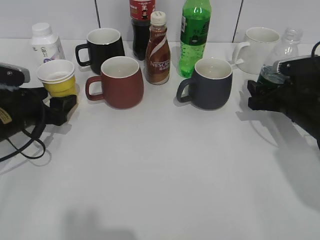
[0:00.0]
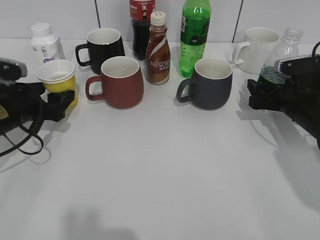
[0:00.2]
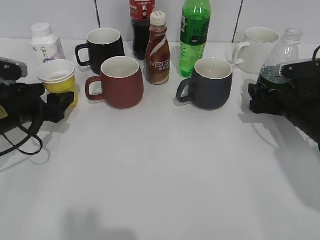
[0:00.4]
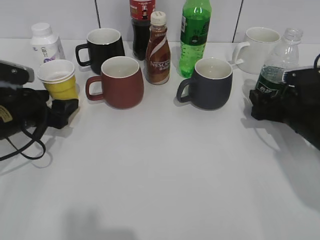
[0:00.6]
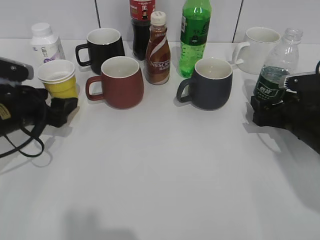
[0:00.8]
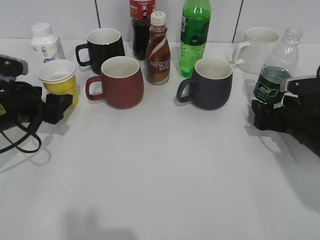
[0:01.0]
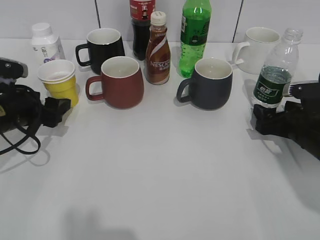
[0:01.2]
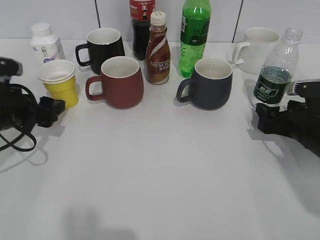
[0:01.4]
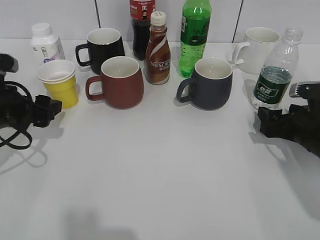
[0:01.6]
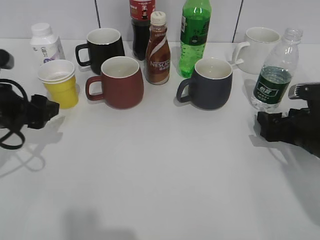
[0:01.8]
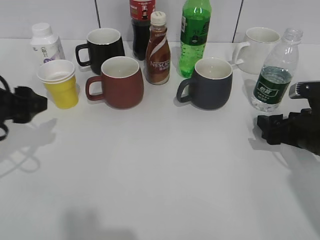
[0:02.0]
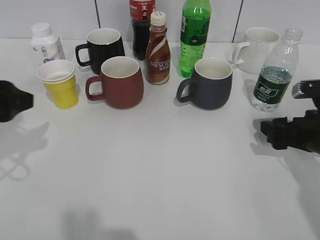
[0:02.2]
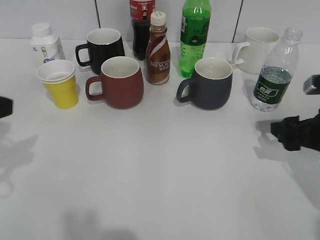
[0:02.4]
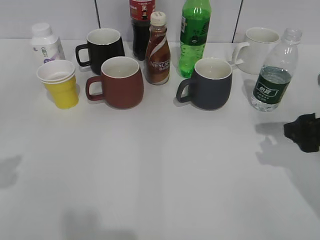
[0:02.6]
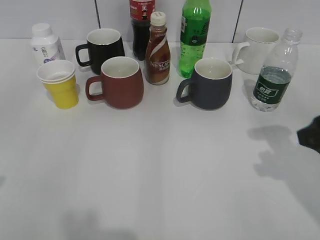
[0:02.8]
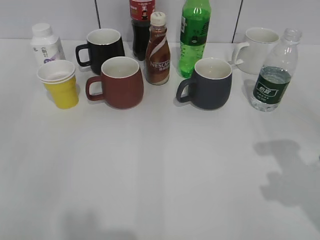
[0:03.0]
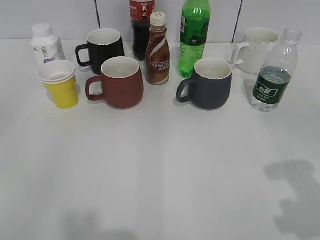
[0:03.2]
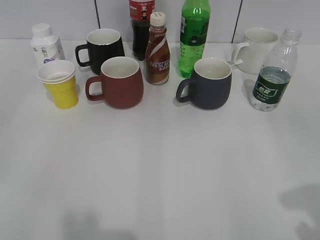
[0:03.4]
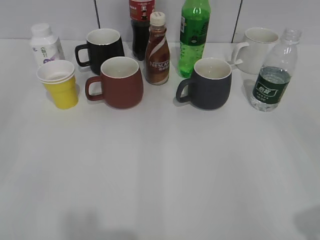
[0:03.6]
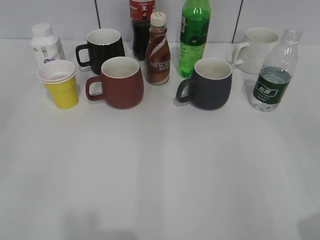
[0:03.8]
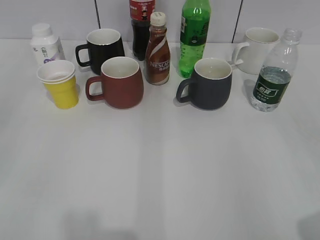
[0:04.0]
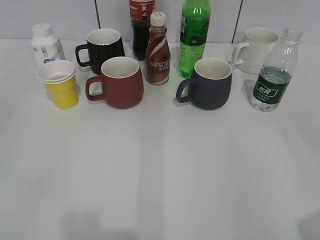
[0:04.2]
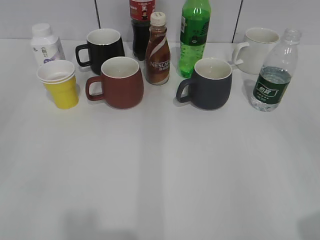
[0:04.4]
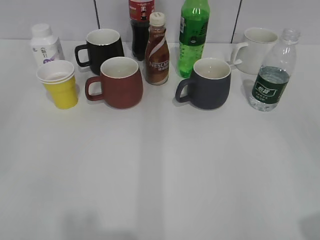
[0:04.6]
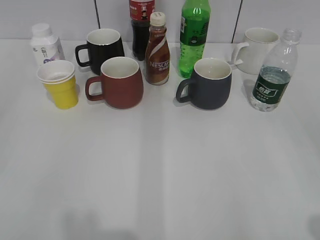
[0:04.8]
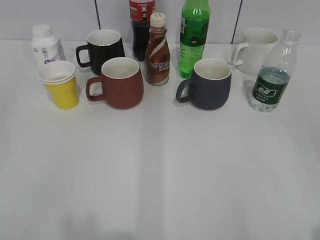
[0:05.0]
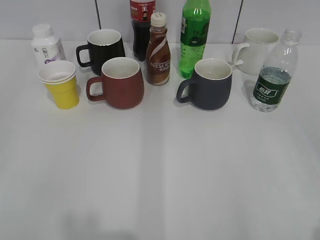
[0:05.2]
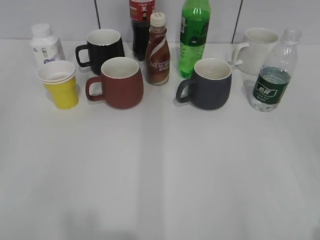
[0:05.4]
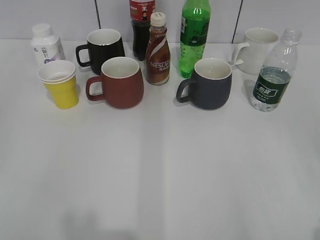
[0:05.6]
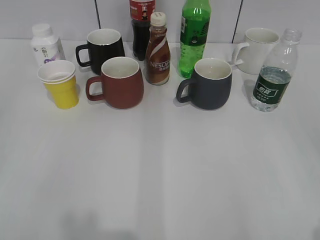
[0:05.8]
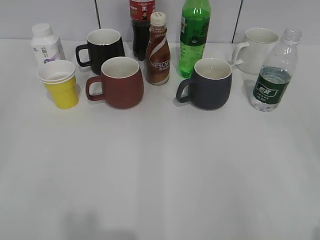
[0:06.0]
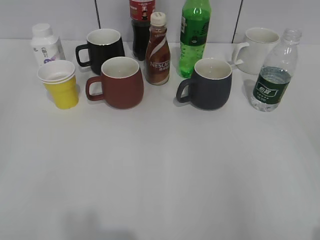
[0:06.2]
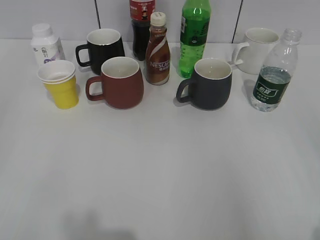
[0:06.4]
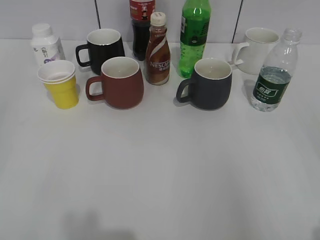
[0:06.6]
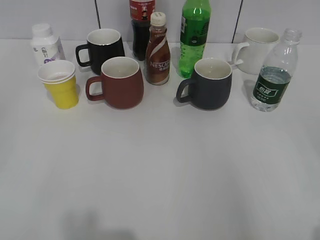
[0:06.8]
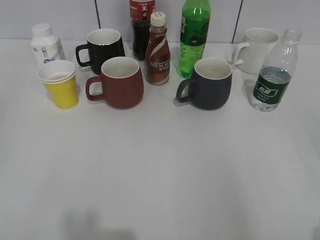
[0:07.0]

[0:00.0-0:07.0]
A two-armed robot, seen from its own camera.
0:00.0 to 0:01.4: The grippers stay close to where they were, moving slightly.
0:01.4 to 0:02.8: The right gripper is displaced upward and backward by some 15 cm. Meanwhile the left gripper shifts about 25 cm backward and upward.
0:02.8 to 0:04.2: The right gripper heads backward, covering roughly 20 cm.
0:05.6 to 0:07.0: Both grippers stay about where they are.

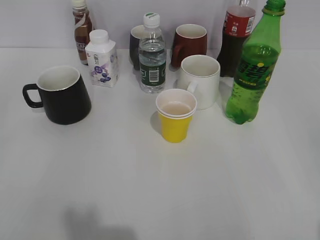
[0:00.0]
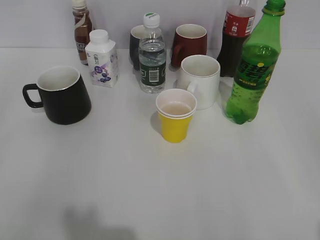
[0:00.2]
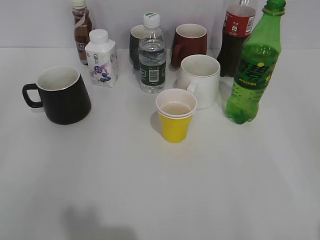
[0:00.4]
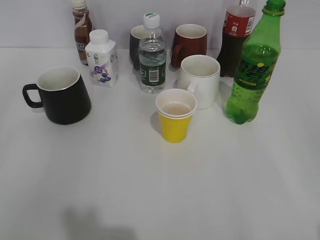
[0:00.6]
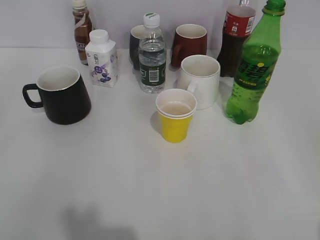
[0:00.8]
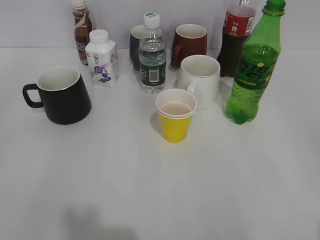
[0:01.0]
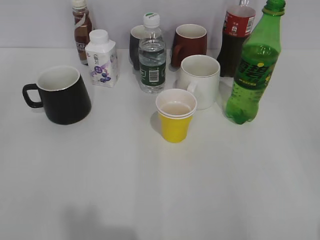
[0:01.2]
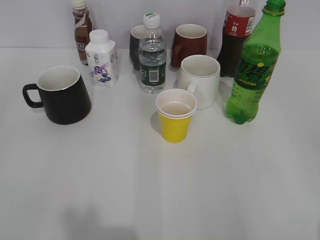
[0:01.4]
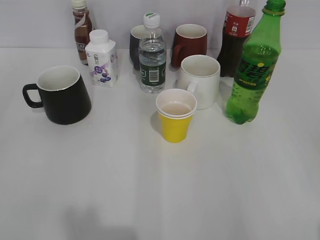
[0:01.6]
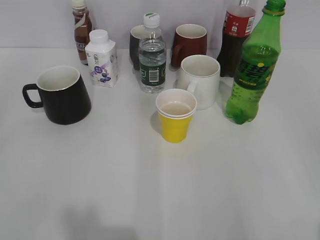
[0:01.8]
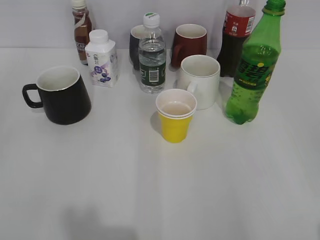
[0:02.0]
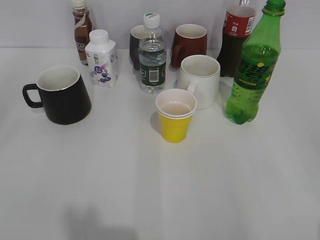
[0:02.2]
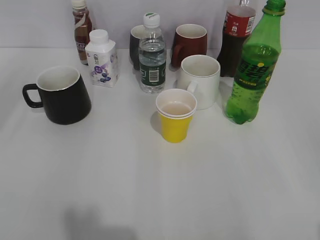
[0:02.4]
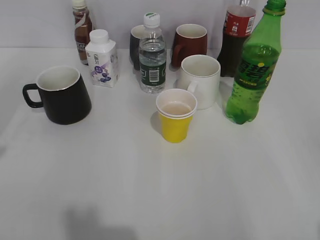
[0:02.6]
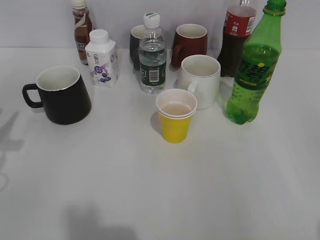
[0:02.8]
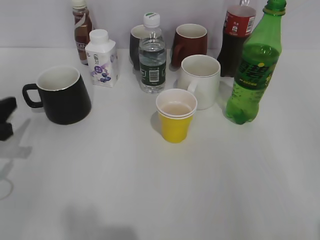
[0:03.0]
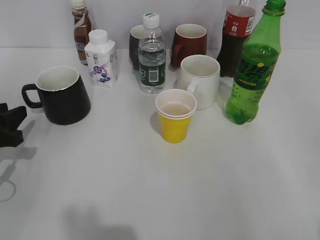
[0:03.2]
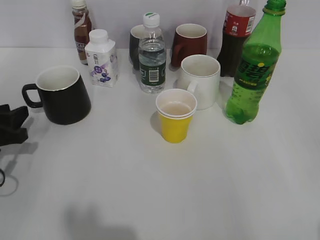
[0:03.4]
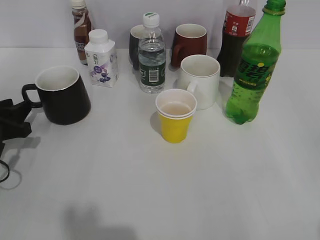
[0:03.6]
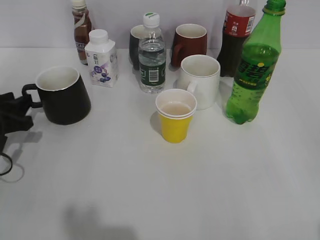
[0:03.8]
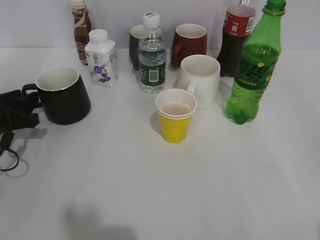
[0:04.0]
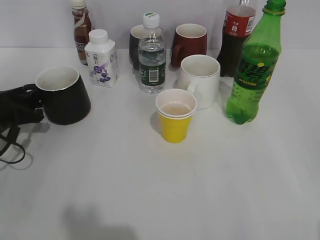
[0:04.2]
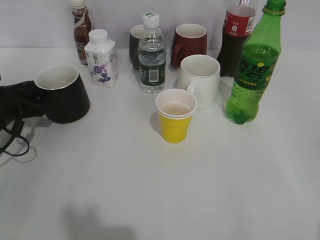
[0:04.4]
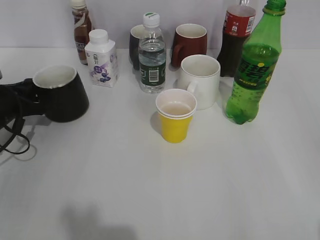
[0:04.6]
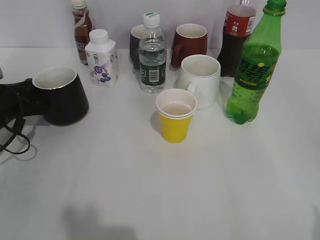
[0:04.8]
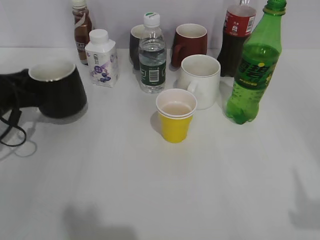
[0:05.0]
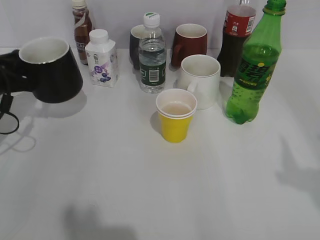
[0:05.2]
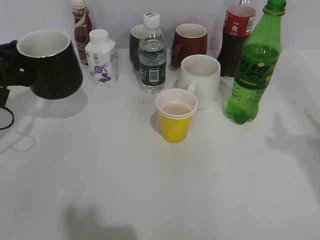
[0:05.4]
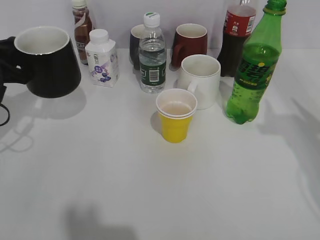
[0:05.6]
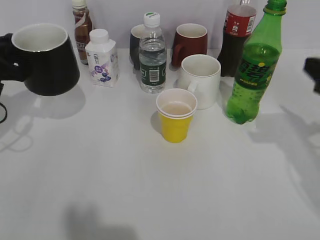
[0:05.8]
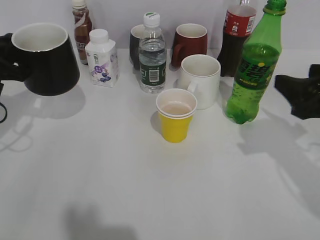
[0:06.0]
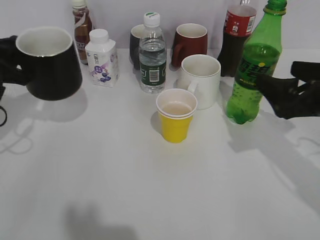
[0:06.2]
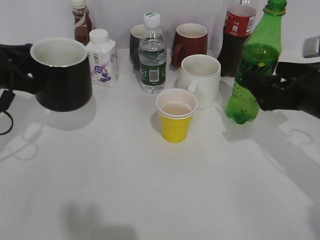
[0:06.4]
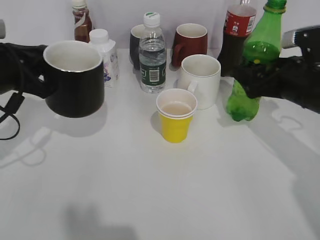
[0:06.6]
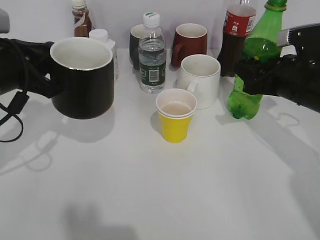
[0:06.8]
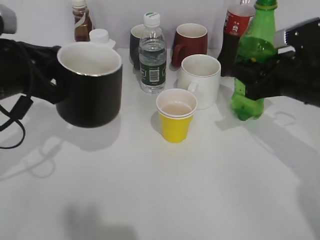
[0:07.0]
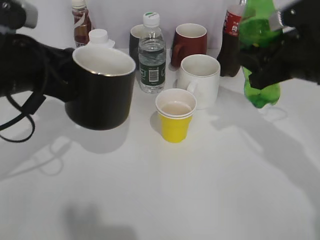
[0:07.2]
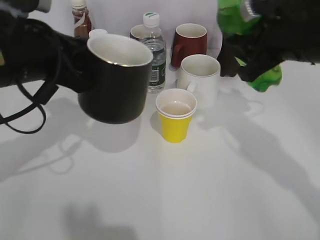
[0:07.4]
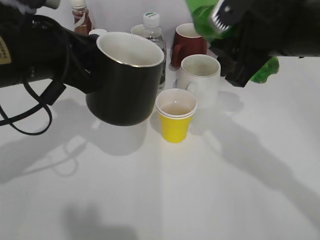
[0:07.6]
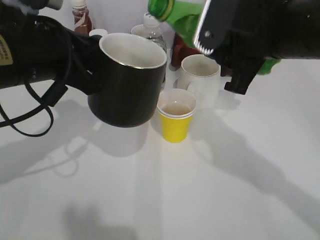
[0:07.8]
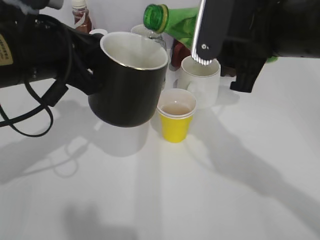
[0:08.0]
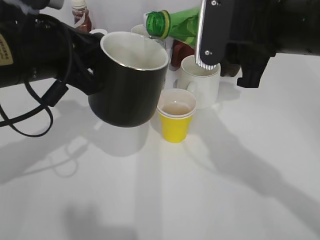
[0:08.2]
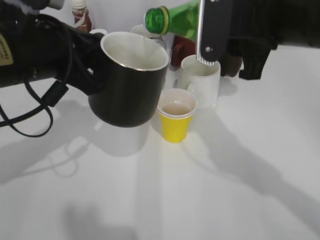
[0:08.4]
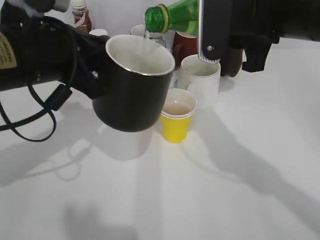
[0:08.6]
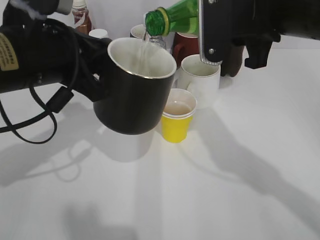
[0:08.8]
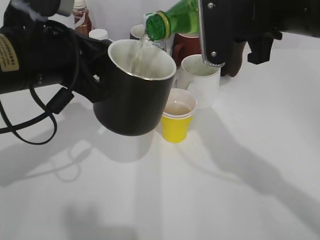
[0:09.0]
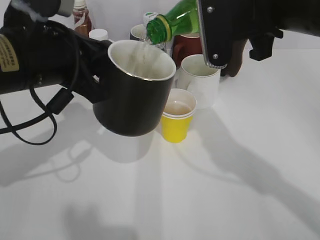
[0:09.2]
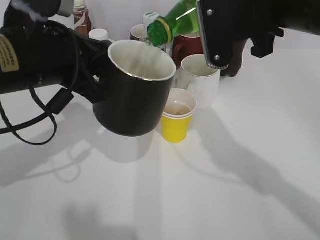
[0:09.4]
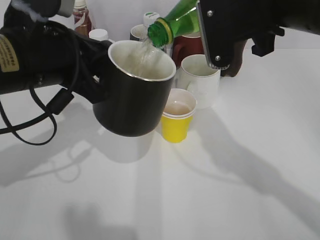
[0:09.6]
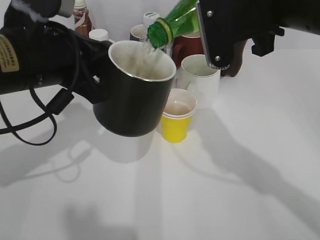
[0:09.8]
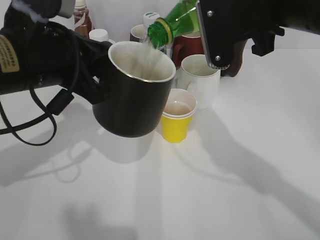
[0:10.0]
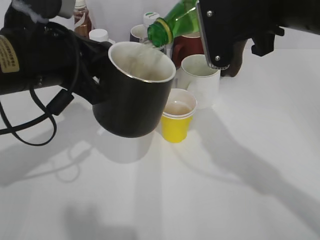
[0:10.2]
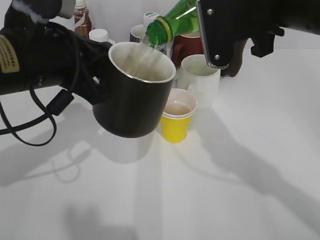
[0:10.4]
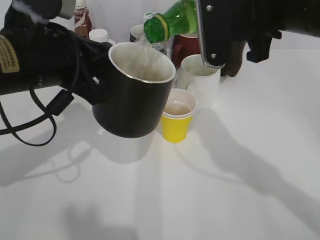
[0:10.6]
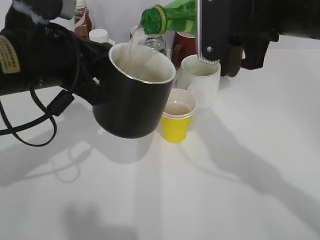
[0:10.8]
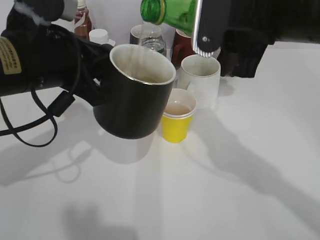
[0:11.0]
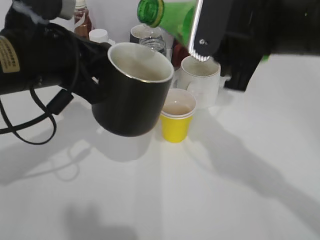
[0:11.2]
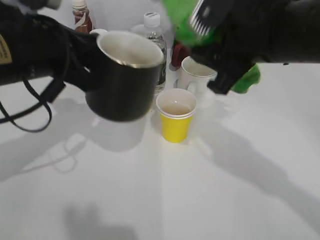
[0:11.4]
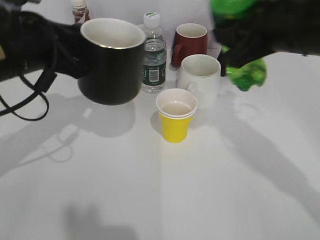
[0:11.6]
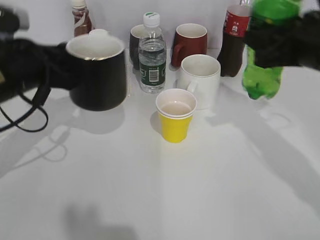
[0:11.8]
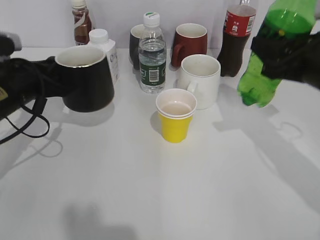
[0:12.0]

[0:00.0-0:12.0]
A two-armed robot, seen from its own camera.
Step, 0:02.0 to 0:04.6: Grasp the black cup with left gripper.
Step, 0:04.8 to 0:05.6: Lift the black cup with left gripper.
Step, 0:05.8 to 0:06.6: Grasp the bottle with sprite with right gripper.
Step, 0:06.8 to 0:11.0: Pour the sprite from bottle to cup with right gripper.
0:01.6 to 0:03.0: The left gripper goes some 25 cm forward and downward.
0:03.0 to 0:04.4: The left gripper is displaced forward and downward by some 10 cm.
0:04.4 to 0:06.0: The left gripper heads upward, covering approximately 10 cm, and closes its fingers. The right gripper shifts some 20 cm forward.
0:06.0 to 0:07.6: The right gripper shifts about 15 cm to the left, upward and forward, and closes its fingers, while the left gripper is displaced to the right, upward and backward by roughly 15 cm.
0:09.0 to 0:10.4: The grippers make only small movements.
0:10.4 to 0:12.0: The left gripper heads downward, to the left and forward, covering some 15 cm, while the right gripper moves to the right and downward, about 15 cm.

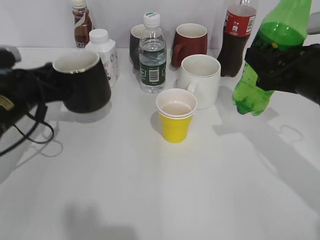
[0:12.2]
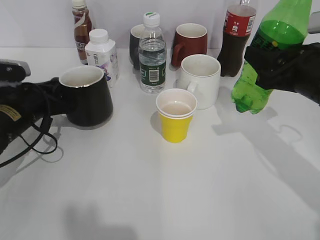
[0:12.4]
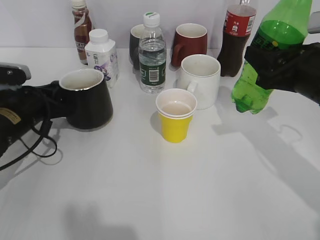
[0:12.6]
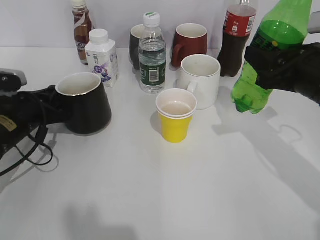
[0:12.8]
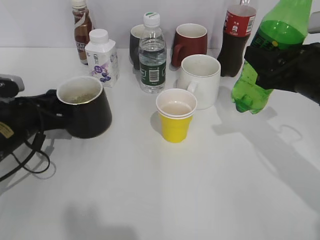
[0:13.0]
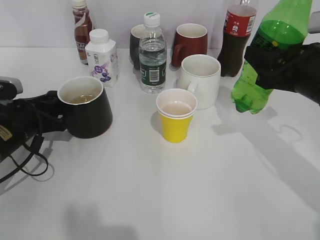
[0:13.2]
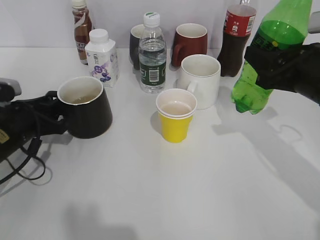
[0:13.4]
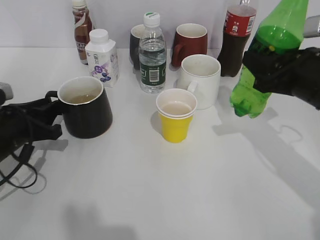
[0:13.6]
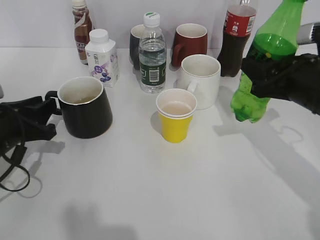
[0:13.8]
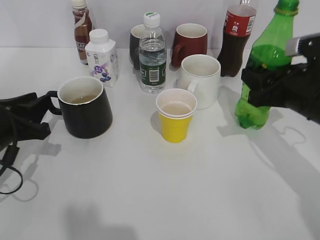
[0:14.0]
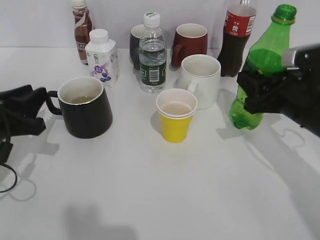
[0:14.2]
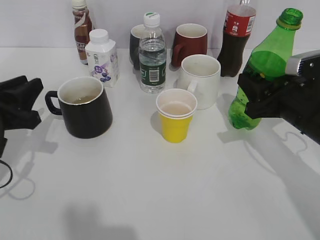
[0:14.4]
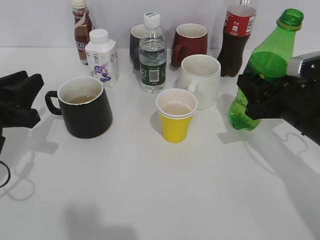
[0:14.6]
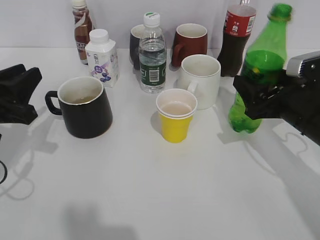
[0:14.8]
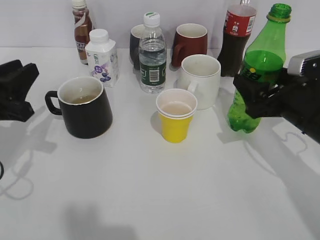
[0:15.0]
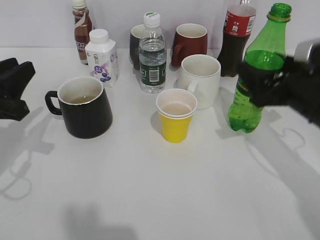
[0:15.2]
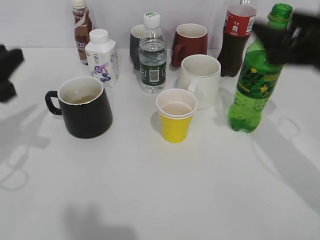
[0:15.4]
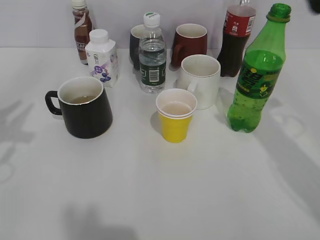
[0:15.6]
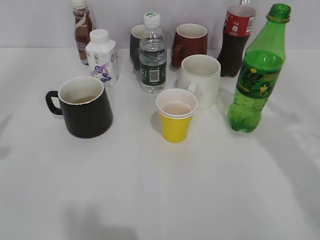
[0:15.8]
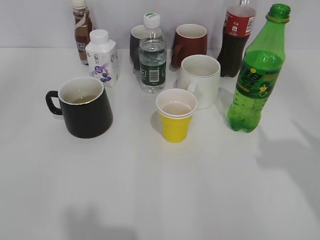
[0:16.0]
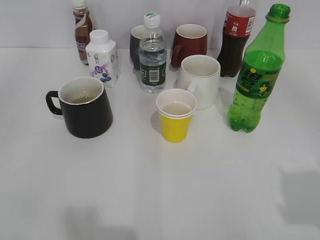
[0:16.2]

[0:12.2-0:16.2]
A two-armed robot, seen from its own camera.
Step, 0:12.2 to 0:13.4: Place the black cup on the table with left gripper.
Step, 0:13.6 to 0:15.4: Place the sprite bottle on the table with right gripper.
0:12.2 to 0:13.6: The left gripper travels backward by roughly 5 cm, and opens its fingers.
0:13.6 to 0:14.8: The left gripper moves upward, approximately 5 cm; the right gripper heads downward, covering approximately 5 cm, and opens.
0:14.8 to 0:16.2: The grippers both shift backward and upward by about 25 cm. The left gripper opens.
